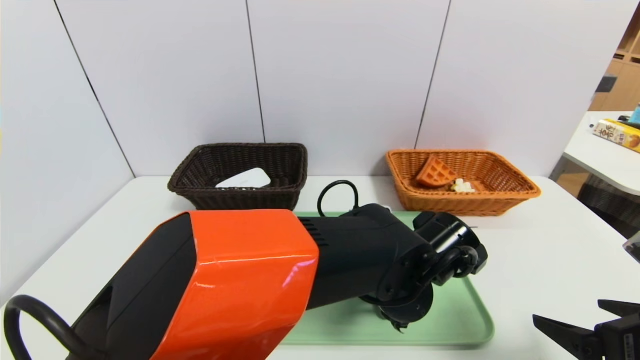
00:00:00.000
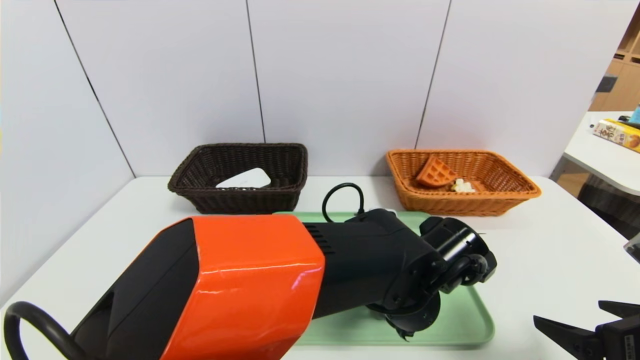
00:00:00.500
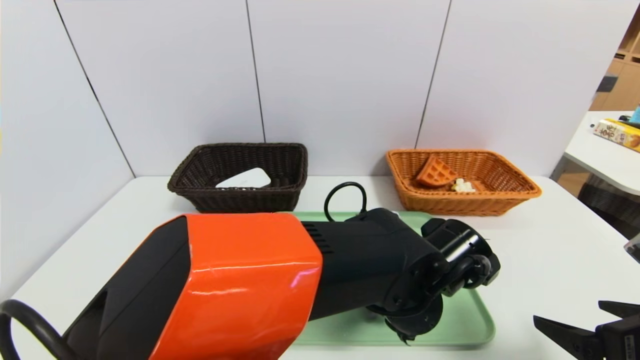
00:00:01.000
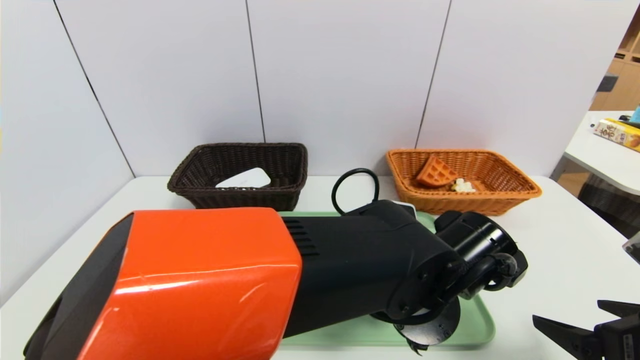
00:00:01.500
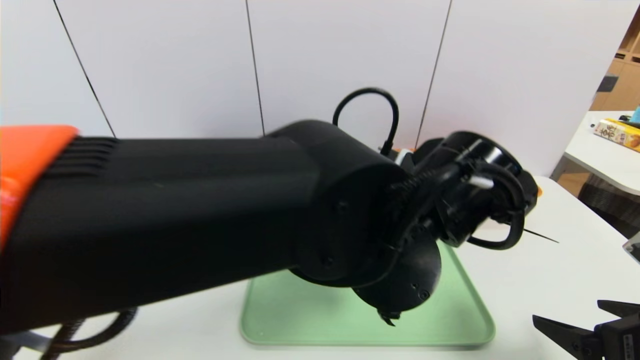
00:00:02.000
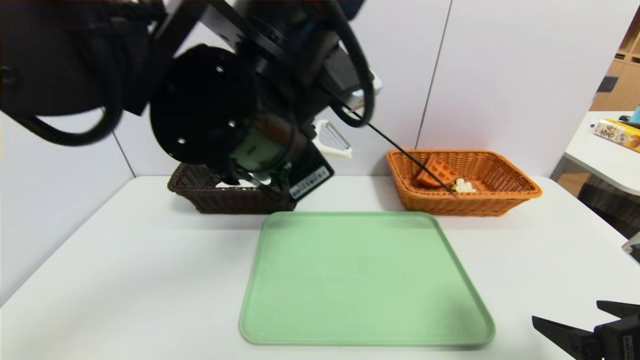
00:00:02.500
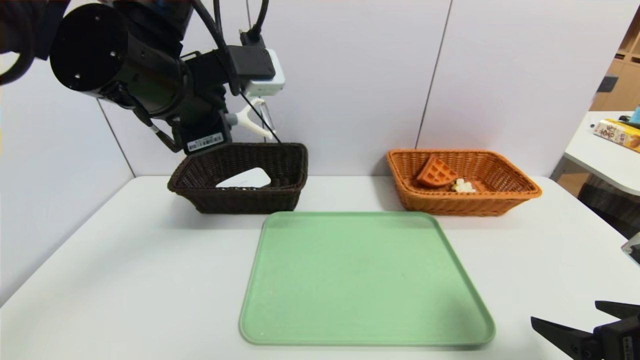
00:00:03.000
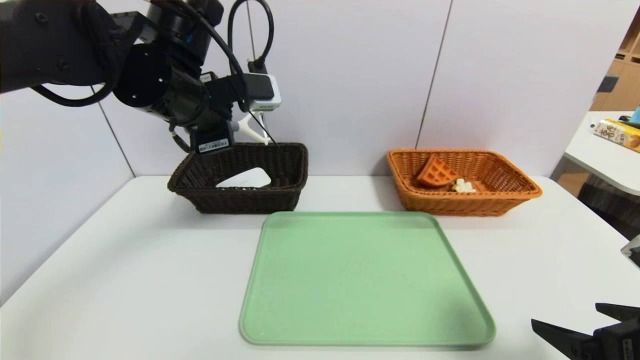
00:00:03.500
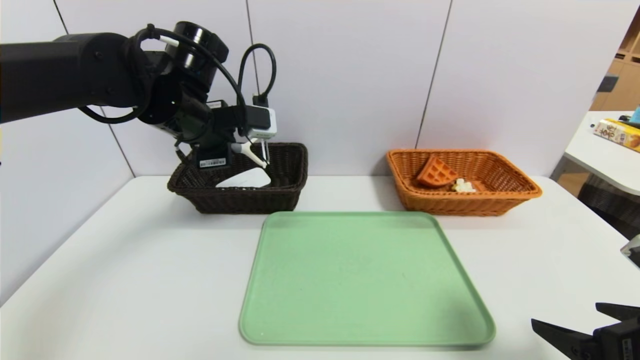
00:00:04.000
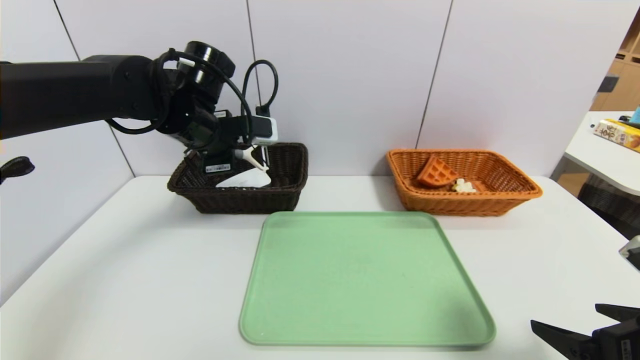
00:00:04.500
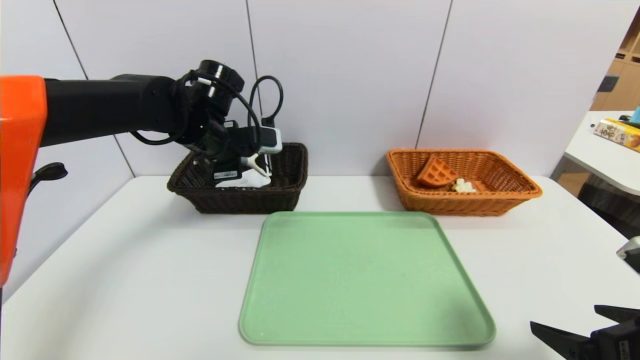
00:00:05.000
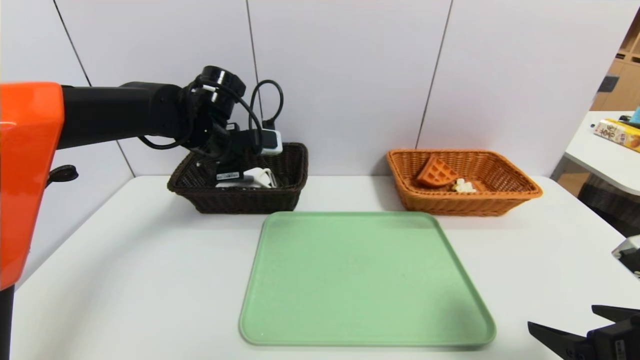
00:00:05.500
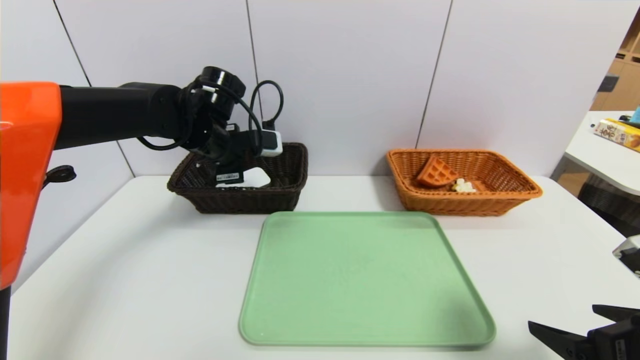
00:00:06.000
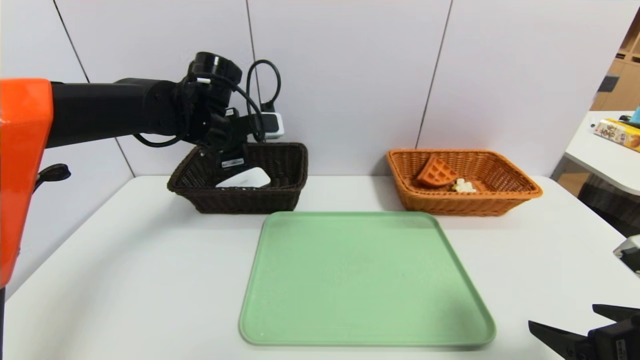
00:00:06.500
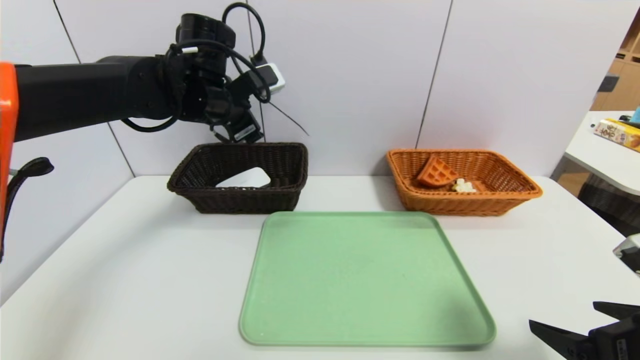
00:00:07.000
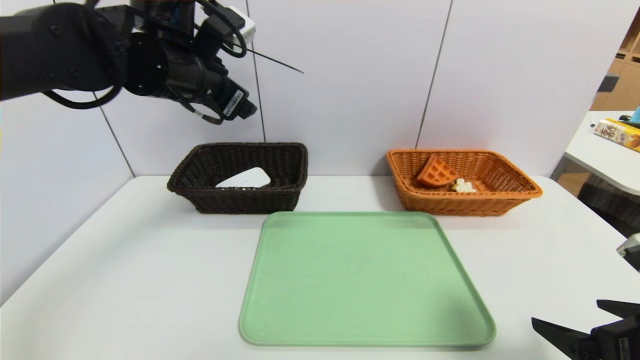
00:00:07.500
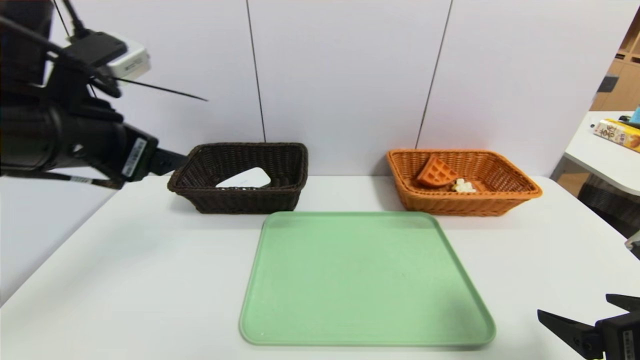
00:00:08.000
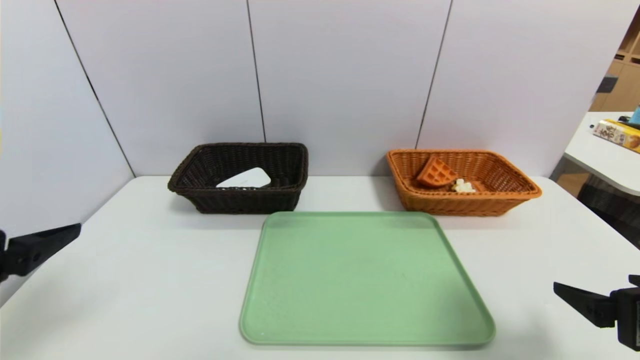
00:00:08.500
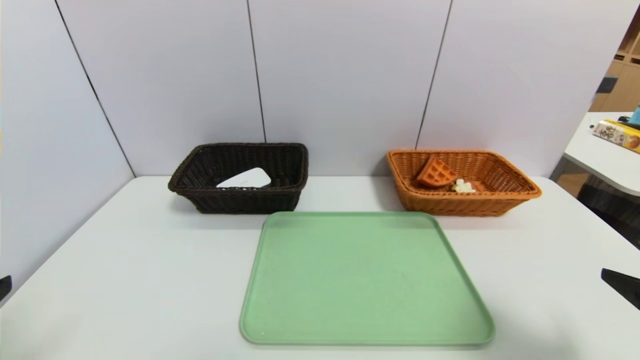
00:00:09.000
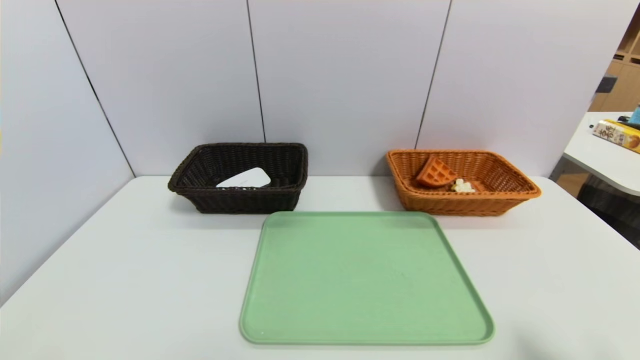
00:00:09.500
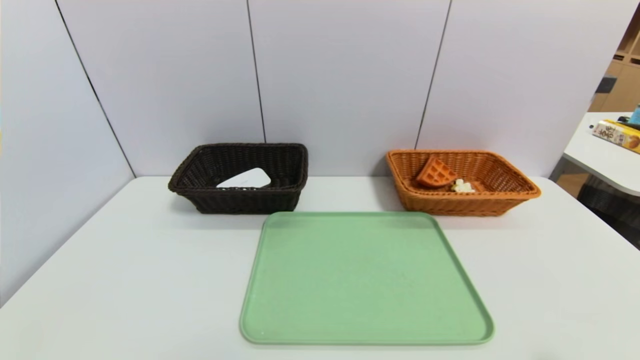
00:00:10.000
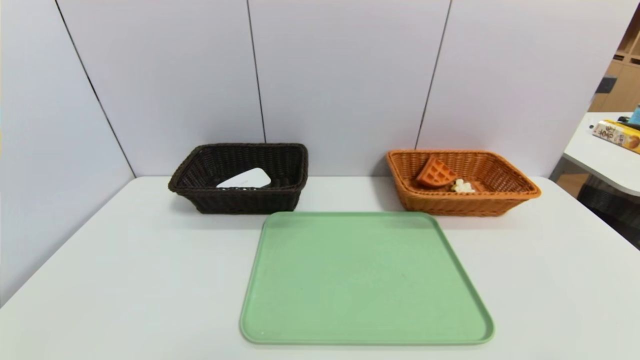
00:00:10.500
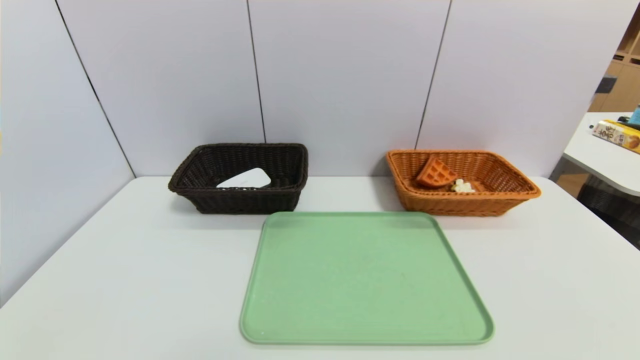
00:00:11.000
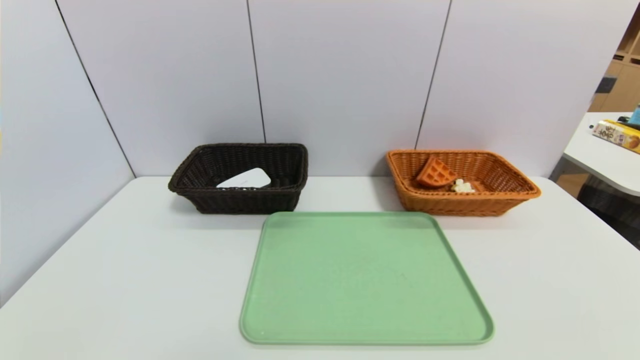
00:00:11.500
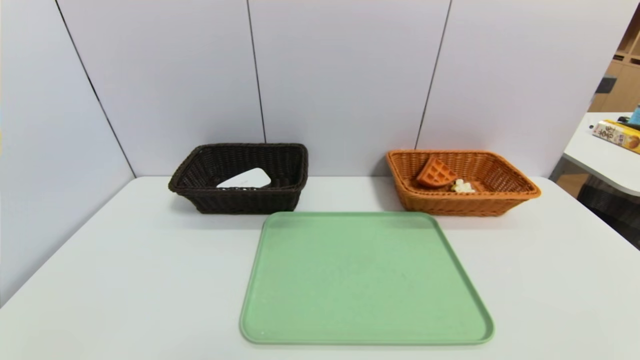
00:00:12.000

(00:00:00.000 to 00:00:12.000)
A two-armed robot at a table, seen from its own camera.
Task of the whole recording: place the food in the right basket with the right gripper, and place the non food items in the left basket with the left gripper.
Step, 00:00:00.000 - 00:00:06.000: Grasp the peeler and put it in the left basket.
00:00:00.000 - 00:00:02.000: The left gripper shifts approximately 10 cm upward, and closes its fingers.
00:00:02.000 - 00:00:04.000: The left gripper heads to the left and forward, covering approximately 25 cm.
00:00:04.000 - 00:00:06.000: The left gripper heads downward, covering about 5 cm, and opens up.
00:00:06.000 - 00:00:08.000: The left gripper travels backward and upward by approximately 20 cm.
00:00:08.000 - 00:00:10.000: The right gripper travels backward and to the right by roughly 10 cm; the left gripper heads backward and downward, covering about 30 cm.

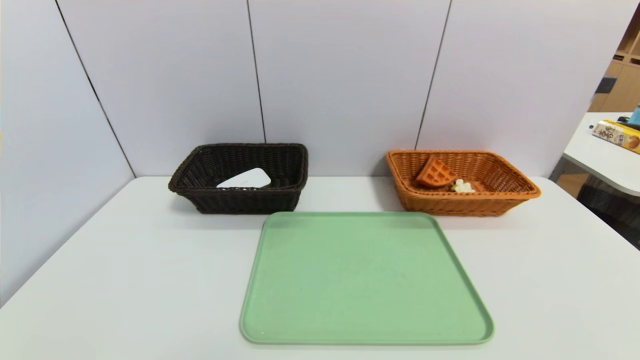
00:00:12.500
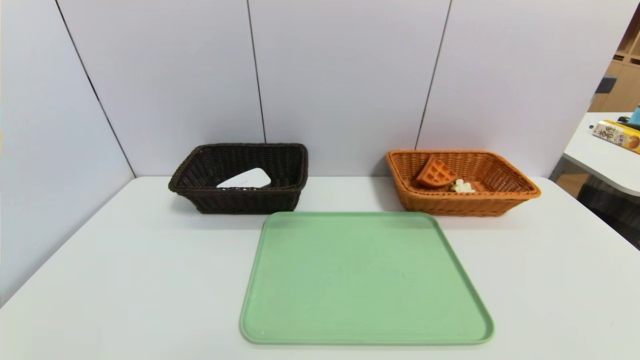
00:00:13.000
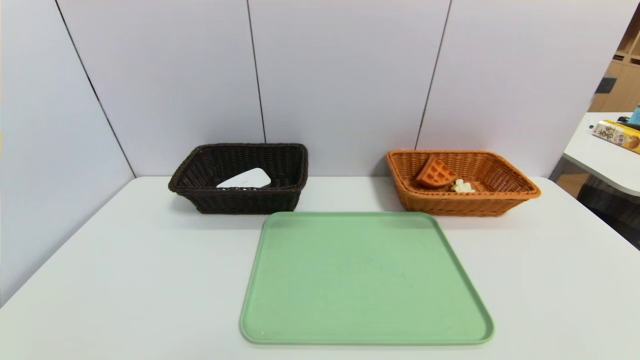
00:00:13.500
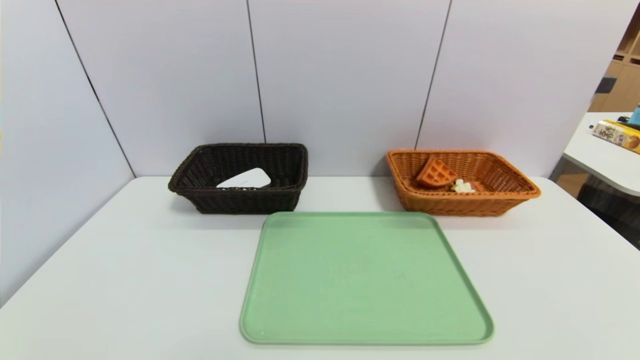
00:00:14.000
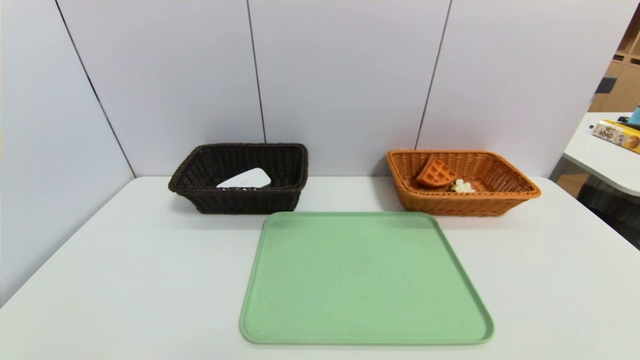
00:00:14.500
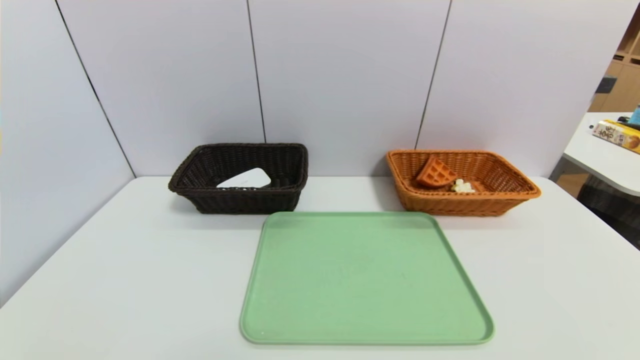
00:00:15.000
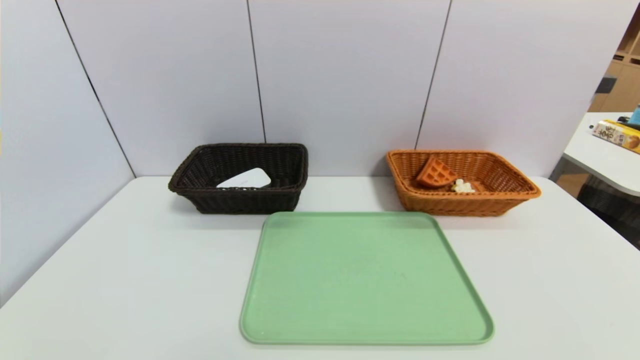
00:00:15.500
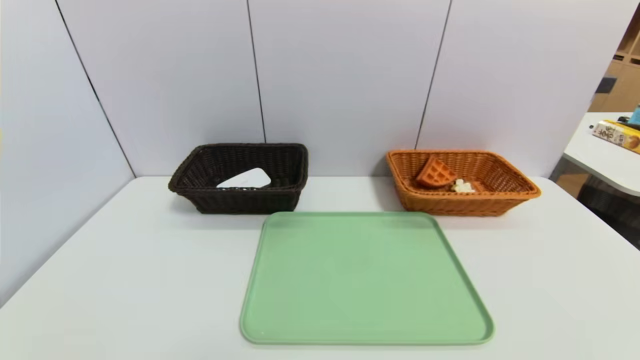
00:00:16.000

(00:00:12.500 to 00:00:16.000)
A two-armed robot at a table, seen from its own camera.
Task of the whole recording: place the food in the right basket with the right gripper, and place the non food items in the left basket with the left gripper.
00:00:14.500 - 00:00:16.000: Both grippers stay about where they are.
